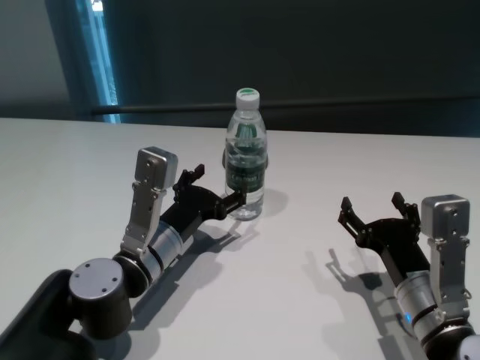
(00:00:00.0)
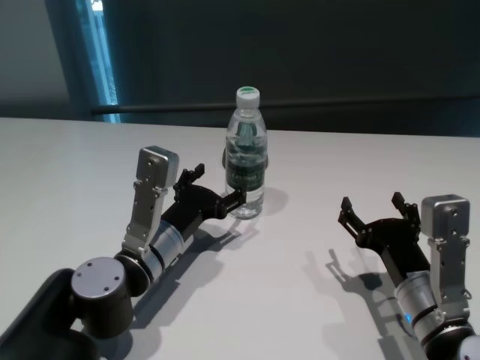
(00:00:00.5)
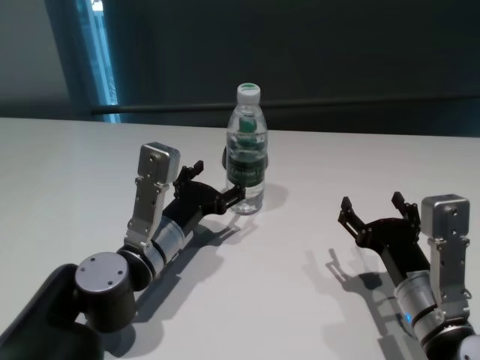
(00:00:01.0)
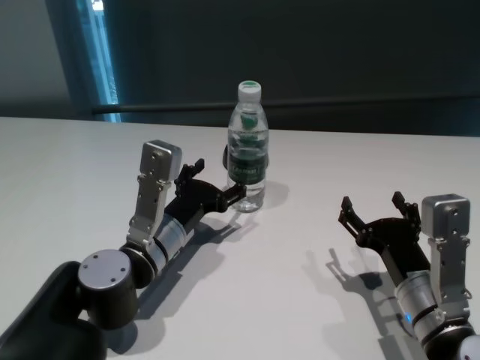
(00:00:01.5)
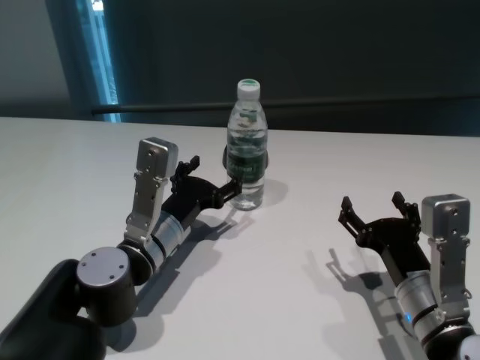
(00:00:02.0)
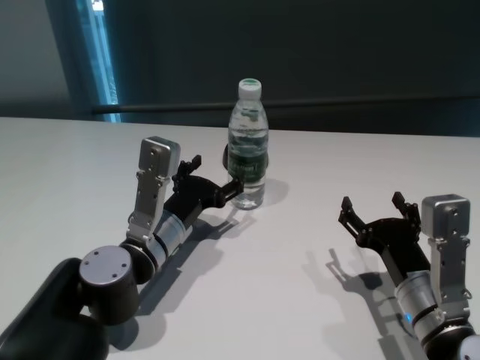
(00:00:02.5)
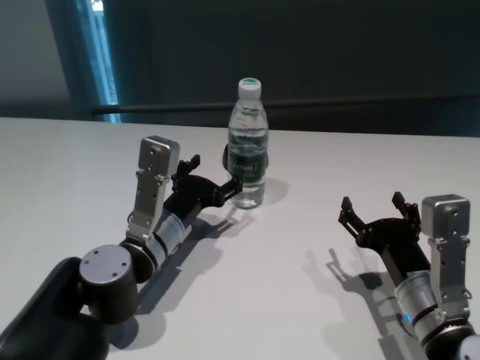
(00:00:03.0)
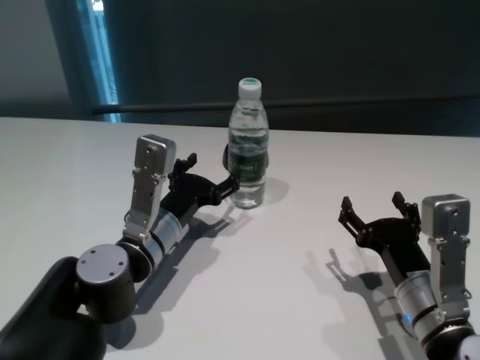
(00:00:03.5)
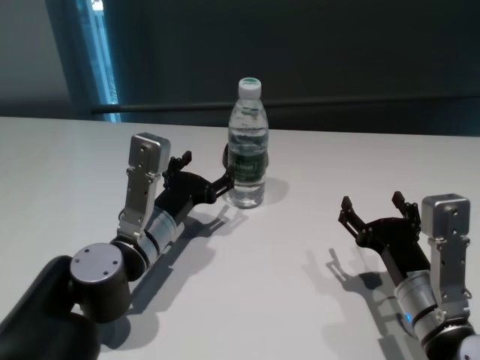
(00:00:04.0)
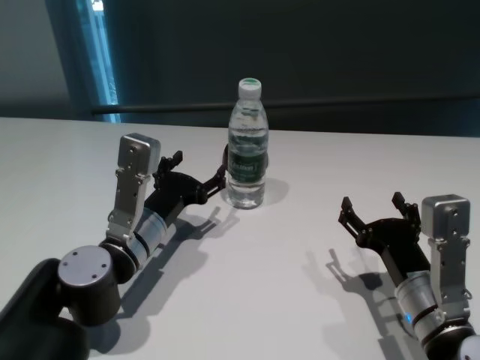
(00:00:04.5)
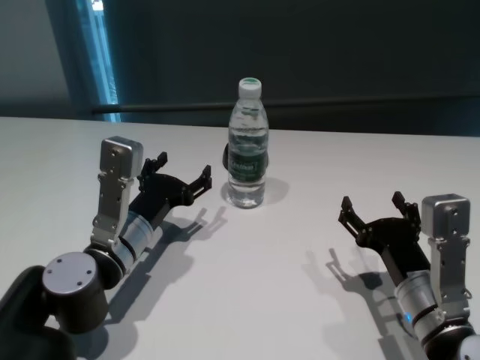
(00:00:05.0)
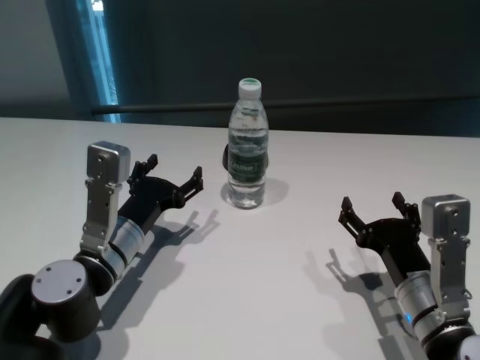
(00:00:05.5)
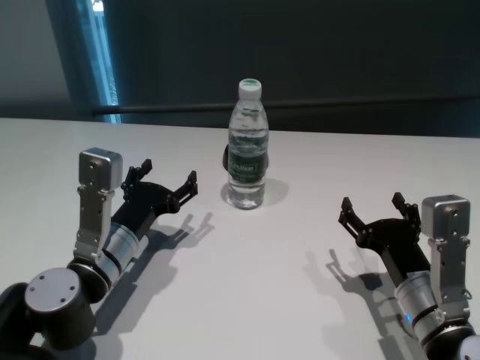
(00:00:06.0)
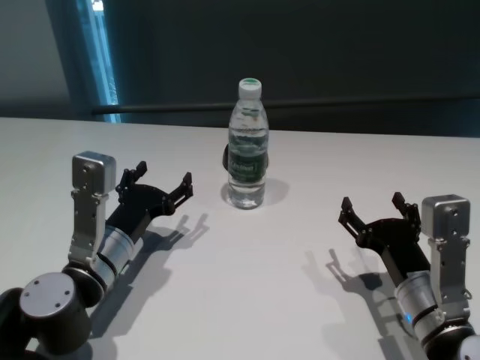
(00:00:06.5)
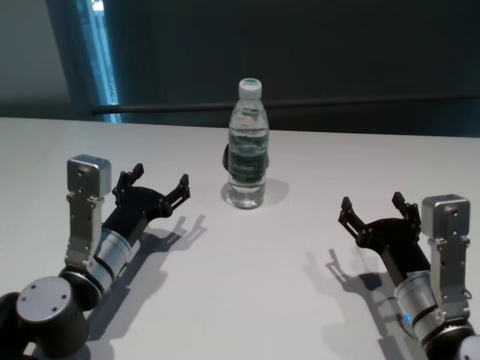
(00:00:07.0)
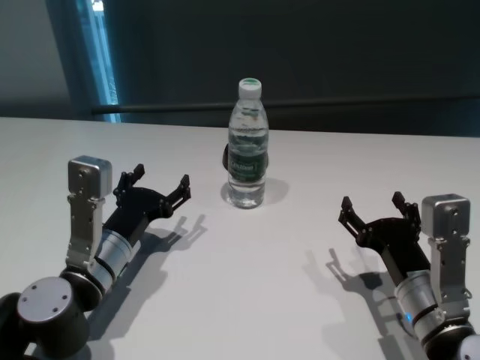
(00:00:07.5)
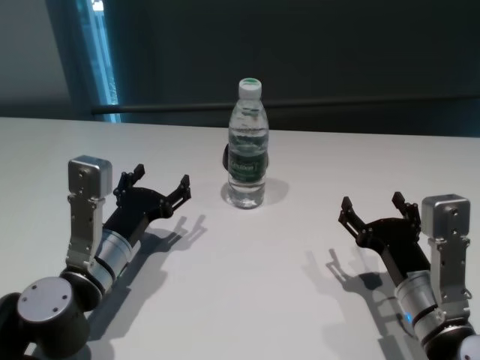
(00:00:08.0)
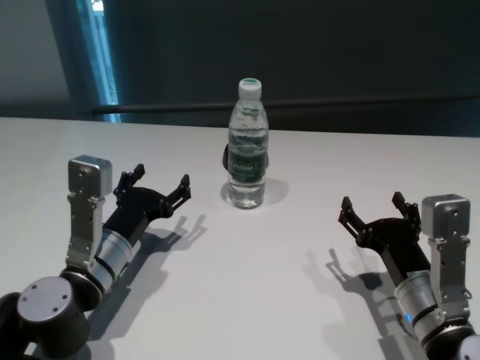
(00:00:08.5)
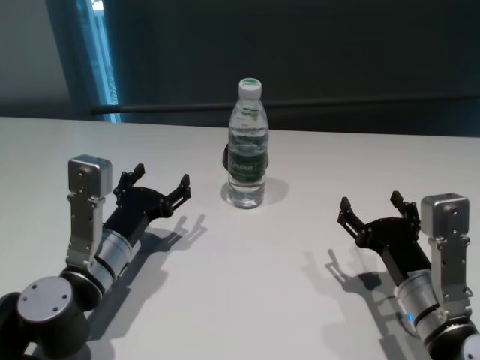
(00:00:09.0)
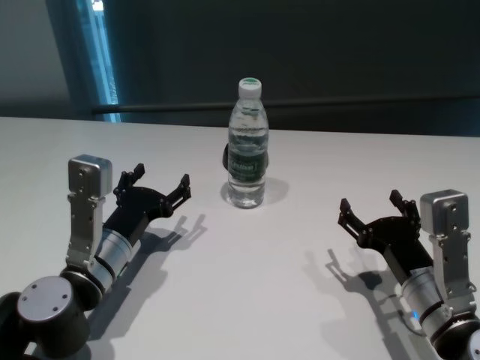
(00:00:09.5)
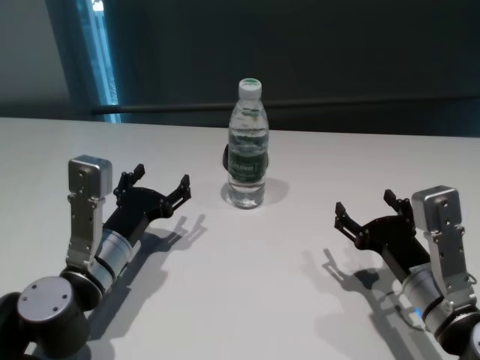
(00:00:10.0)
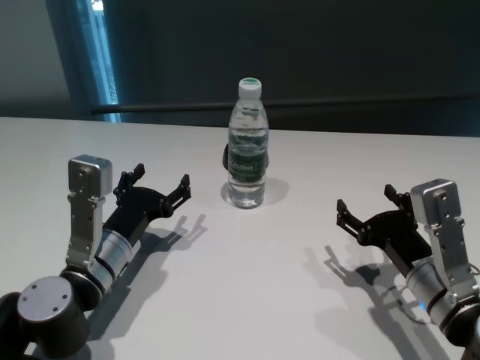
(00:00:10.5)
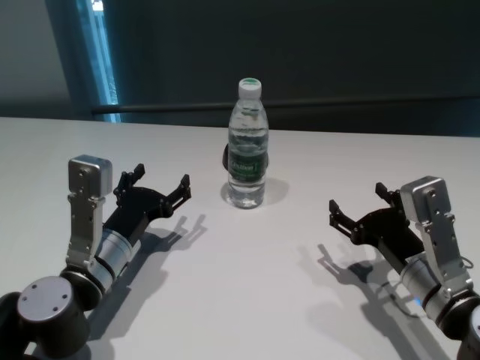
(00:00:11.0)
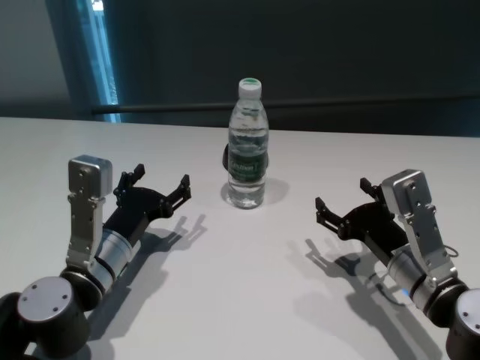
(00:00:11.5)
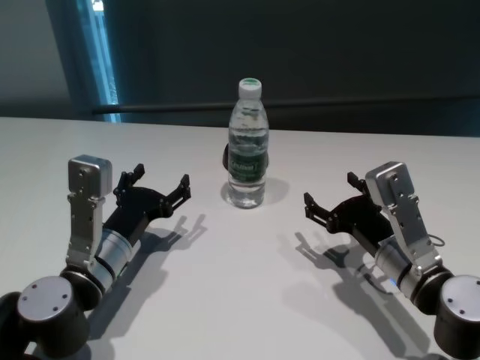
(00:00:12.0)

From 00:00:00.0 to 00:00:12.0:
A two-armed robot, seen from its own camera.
Task of the whole recording: return to a safe position after touching an obstacle with your arm on the white table.
Step, from 00:00:00.0 to 00:00:04.5: Touch the bottle with left gripper.

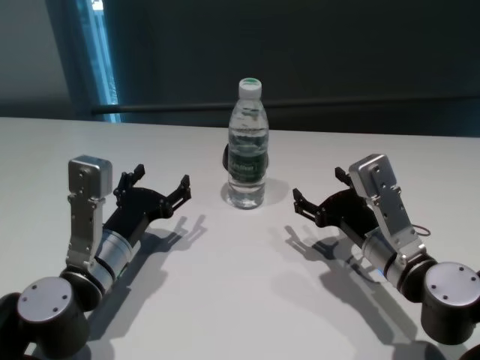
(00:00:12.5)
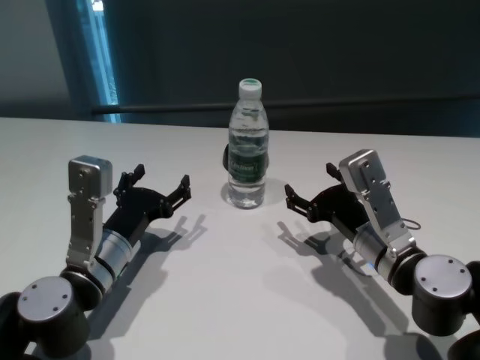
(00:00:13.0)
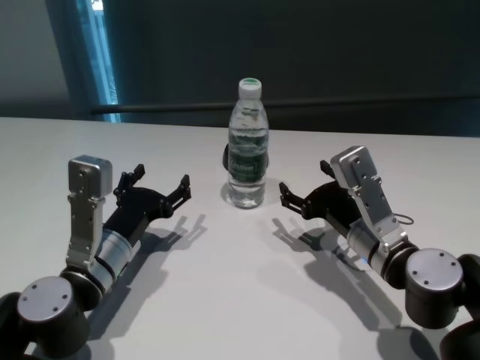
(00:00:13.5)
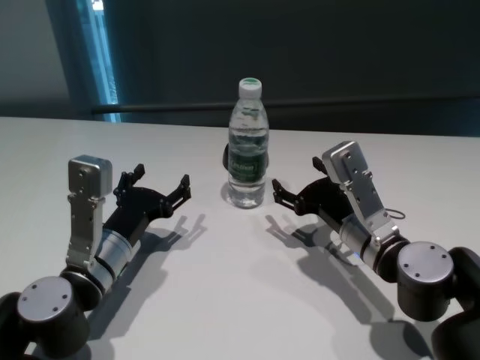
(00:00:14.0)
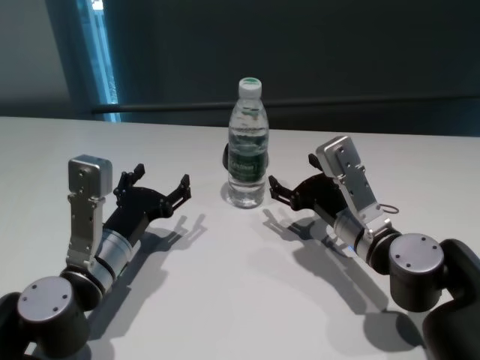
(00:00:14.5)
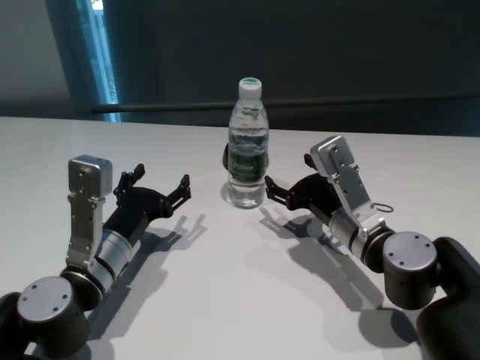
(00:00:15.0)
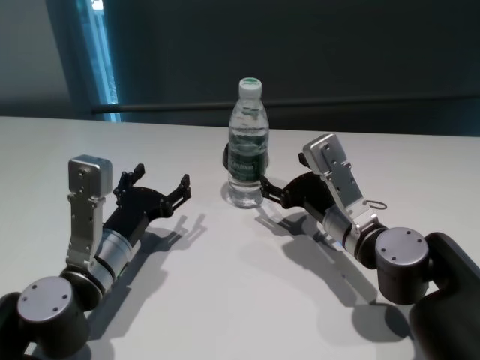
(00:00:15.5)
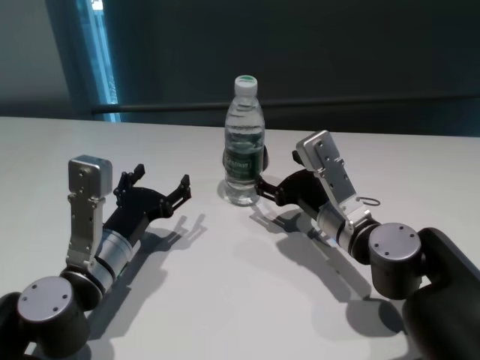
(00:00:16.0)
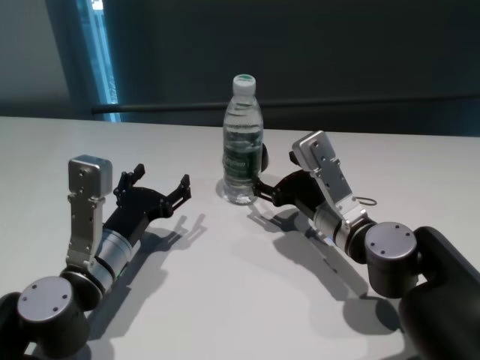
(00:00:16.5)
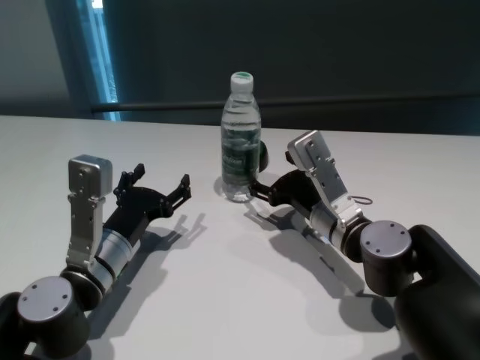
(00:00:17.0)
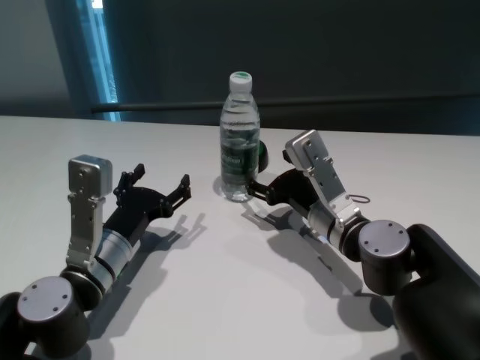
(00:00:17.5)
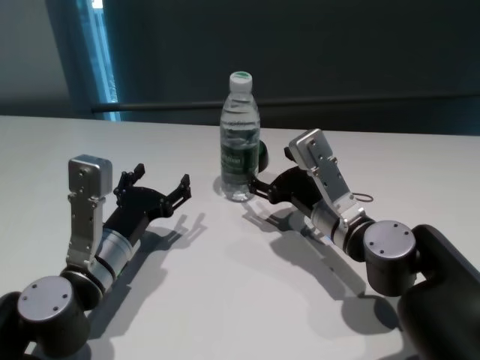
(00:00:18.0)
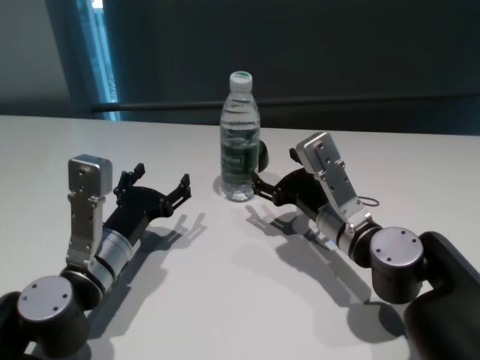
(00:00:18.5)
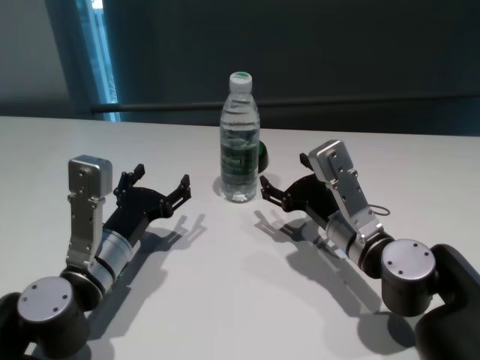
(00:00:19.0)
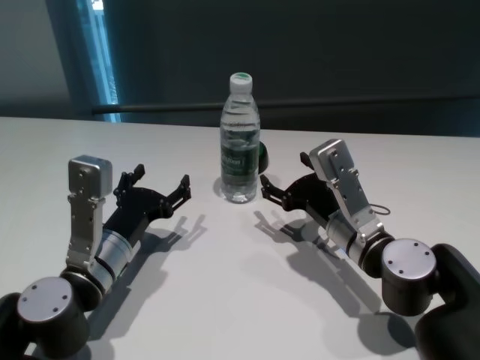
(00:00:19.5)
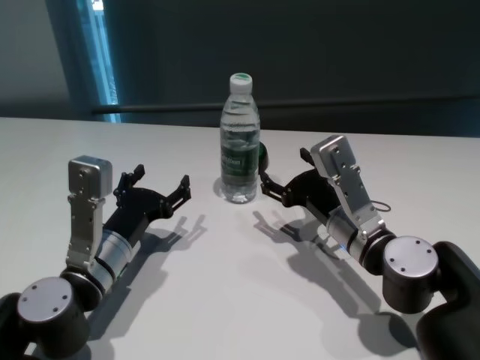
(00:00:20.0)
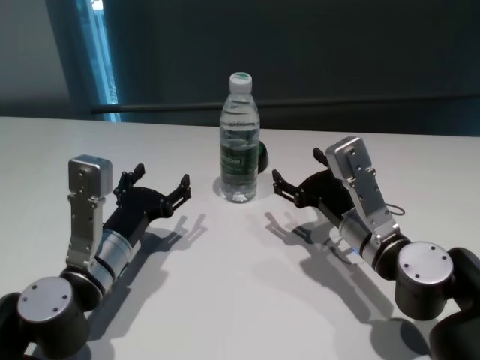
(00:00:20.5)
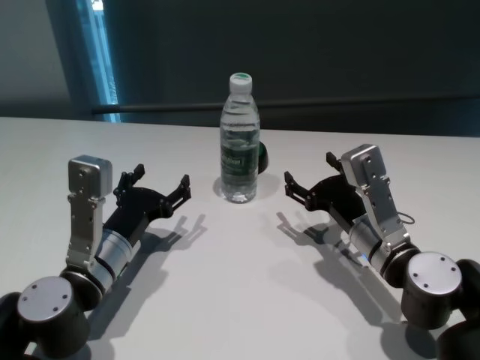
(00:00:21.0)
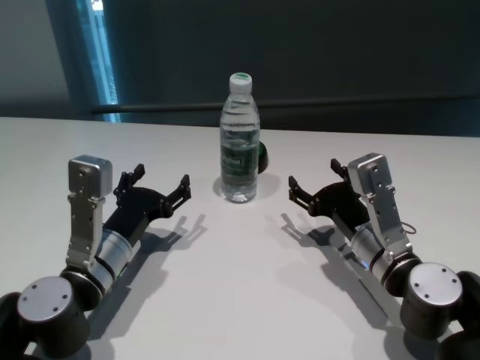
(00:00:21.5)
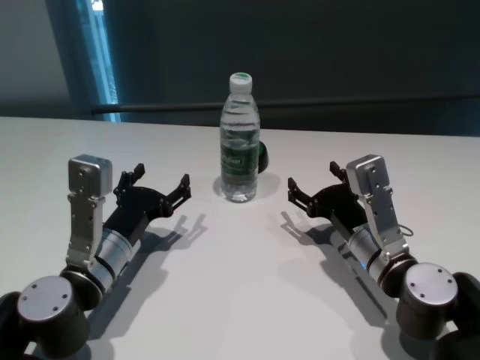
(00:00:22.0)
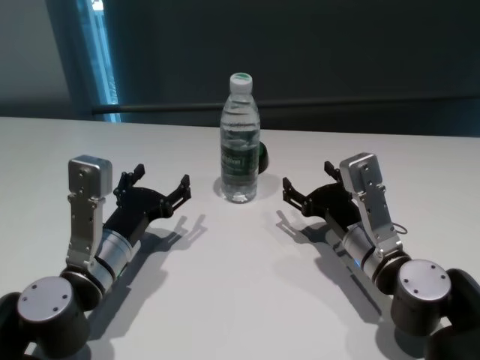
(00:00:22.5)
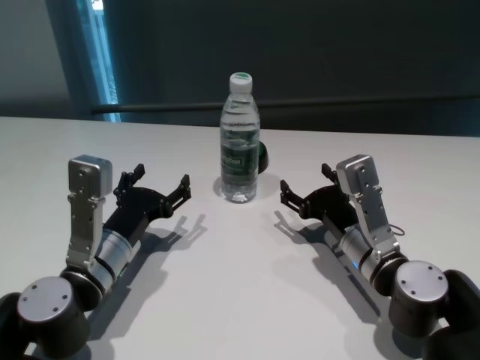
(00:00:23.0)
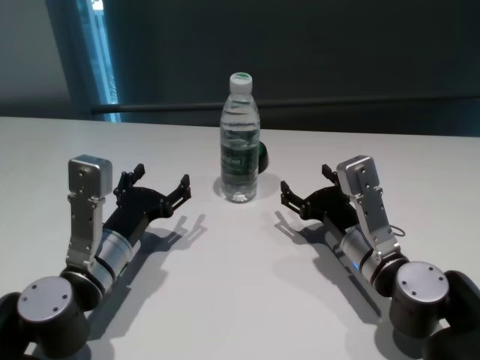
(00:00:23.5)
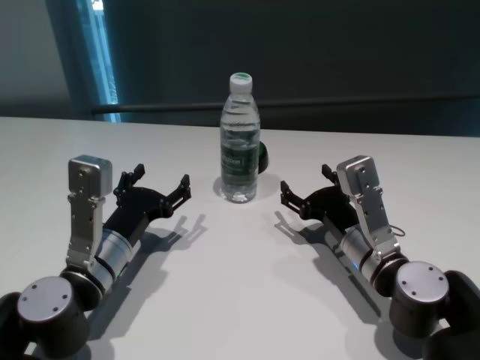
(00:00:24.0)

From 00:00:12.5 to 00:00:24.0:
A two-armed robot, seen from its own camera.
Task of the whole recording: return to a safe position after touching an obstacle with your arm on the white table.
Step, from 00:00:12.5 to 00:00:19.0: Touch the bottle with right gripper.
